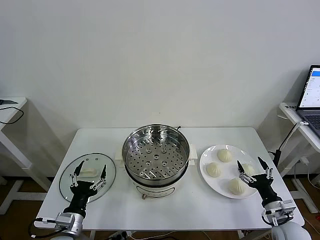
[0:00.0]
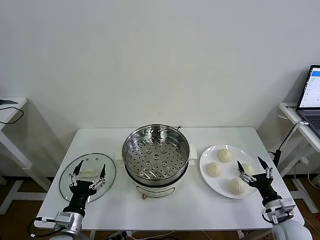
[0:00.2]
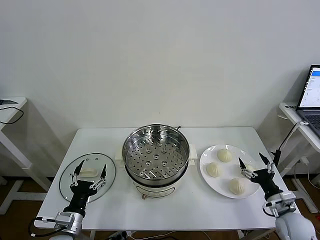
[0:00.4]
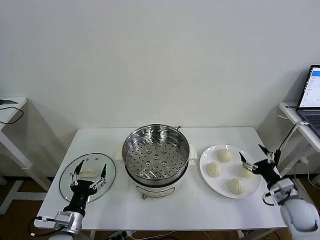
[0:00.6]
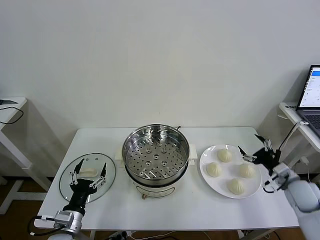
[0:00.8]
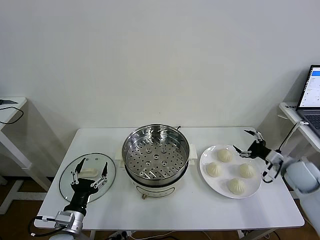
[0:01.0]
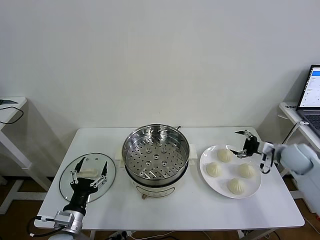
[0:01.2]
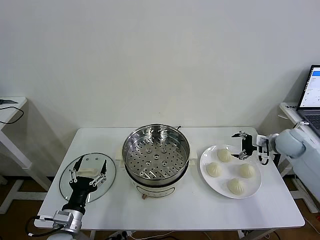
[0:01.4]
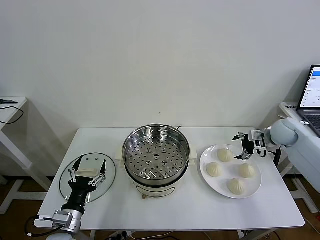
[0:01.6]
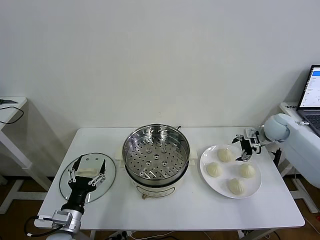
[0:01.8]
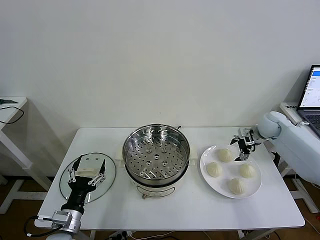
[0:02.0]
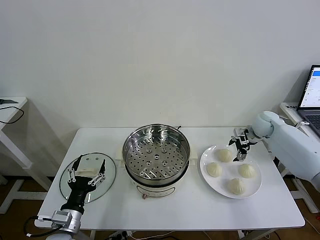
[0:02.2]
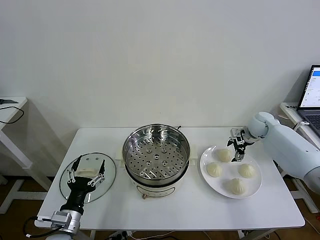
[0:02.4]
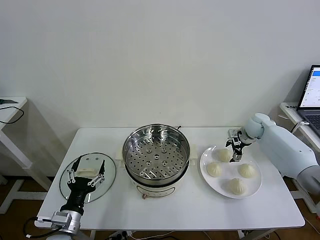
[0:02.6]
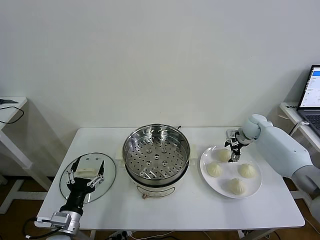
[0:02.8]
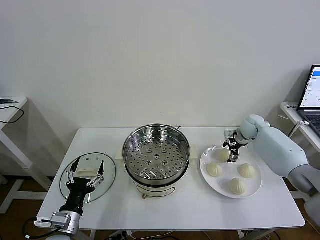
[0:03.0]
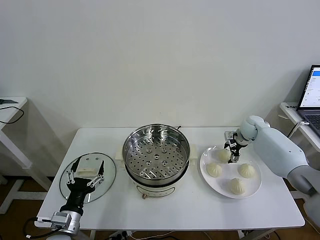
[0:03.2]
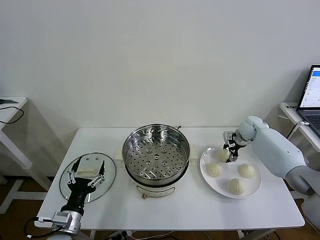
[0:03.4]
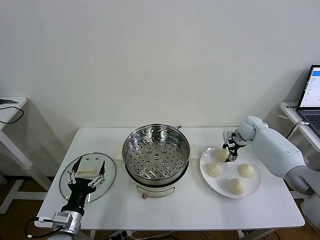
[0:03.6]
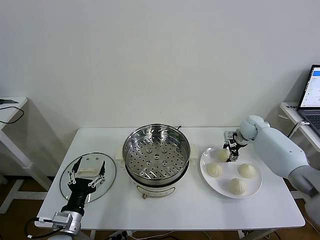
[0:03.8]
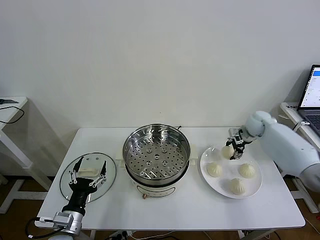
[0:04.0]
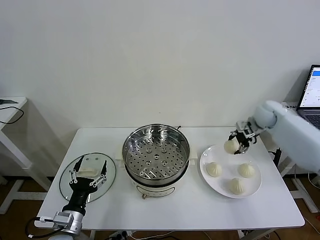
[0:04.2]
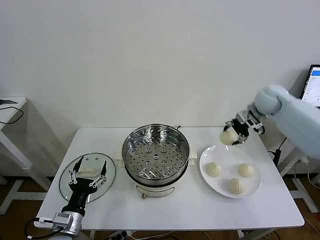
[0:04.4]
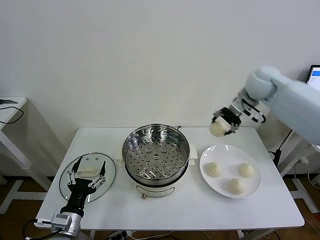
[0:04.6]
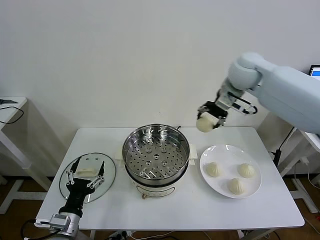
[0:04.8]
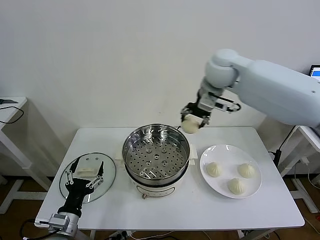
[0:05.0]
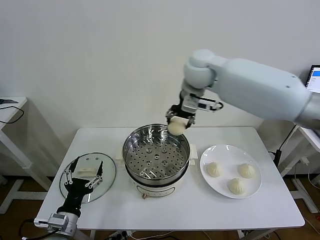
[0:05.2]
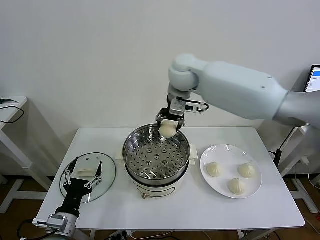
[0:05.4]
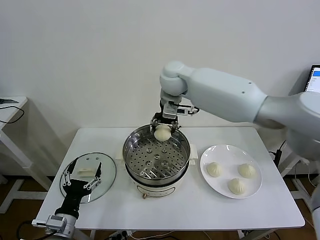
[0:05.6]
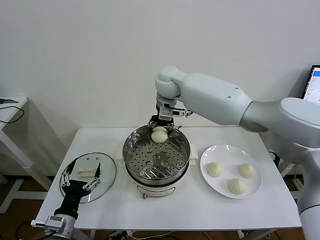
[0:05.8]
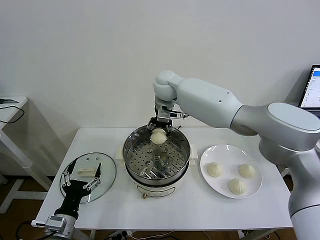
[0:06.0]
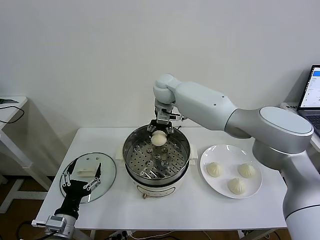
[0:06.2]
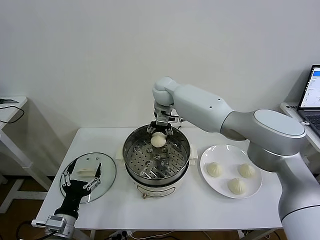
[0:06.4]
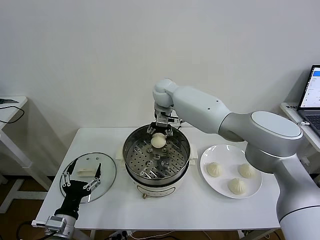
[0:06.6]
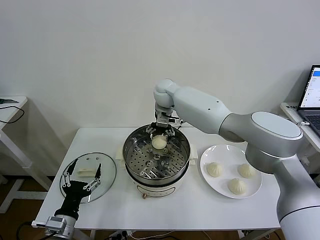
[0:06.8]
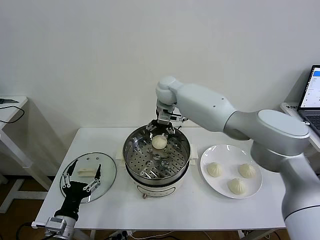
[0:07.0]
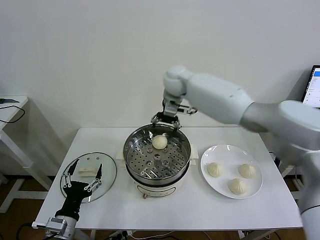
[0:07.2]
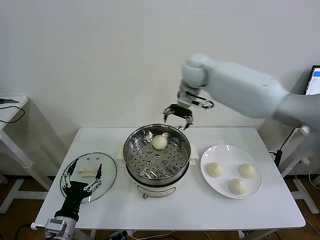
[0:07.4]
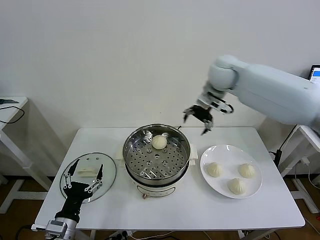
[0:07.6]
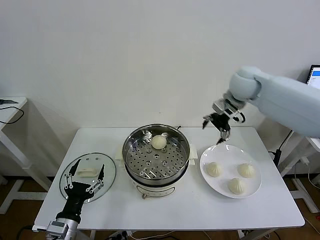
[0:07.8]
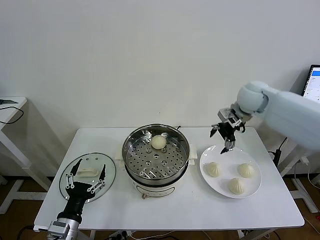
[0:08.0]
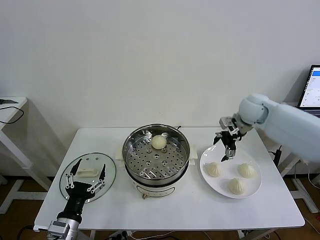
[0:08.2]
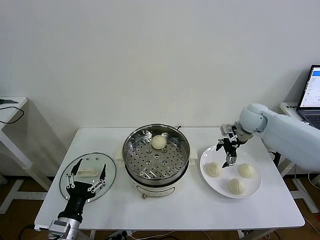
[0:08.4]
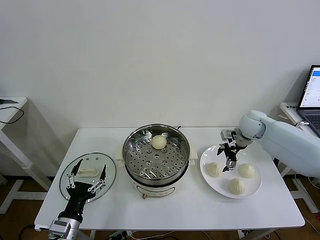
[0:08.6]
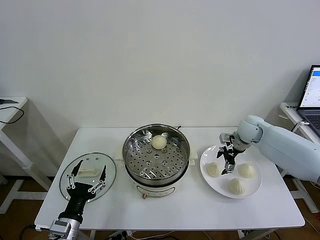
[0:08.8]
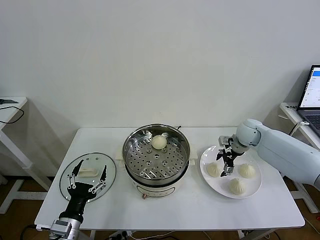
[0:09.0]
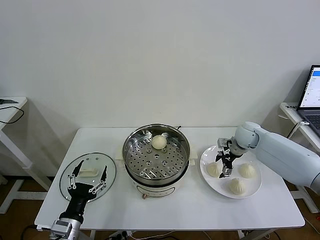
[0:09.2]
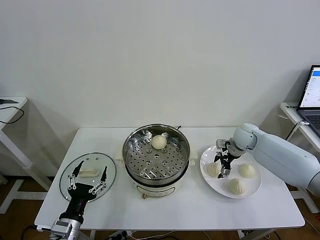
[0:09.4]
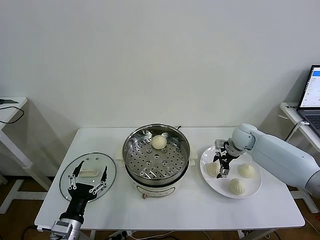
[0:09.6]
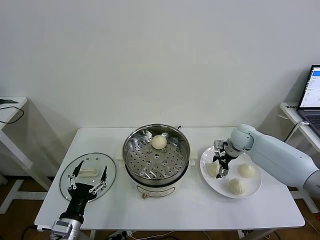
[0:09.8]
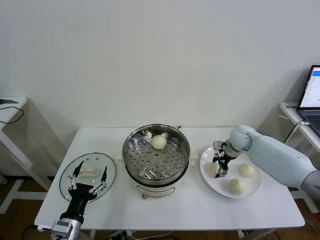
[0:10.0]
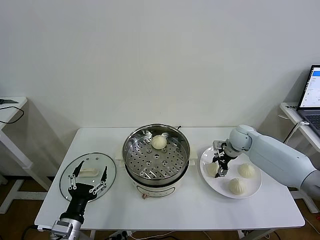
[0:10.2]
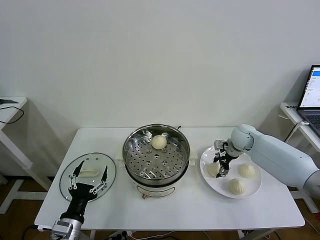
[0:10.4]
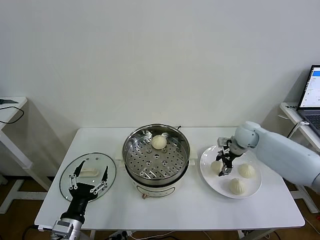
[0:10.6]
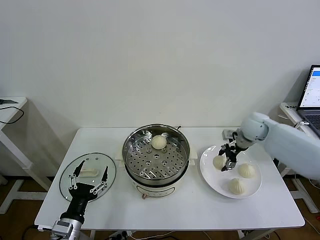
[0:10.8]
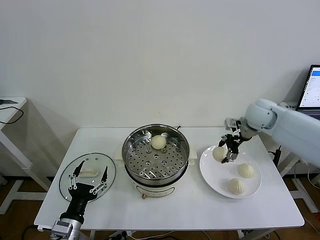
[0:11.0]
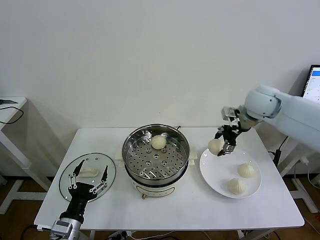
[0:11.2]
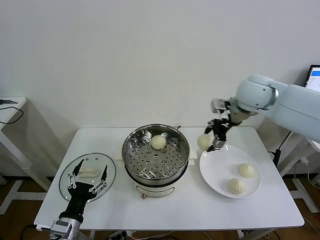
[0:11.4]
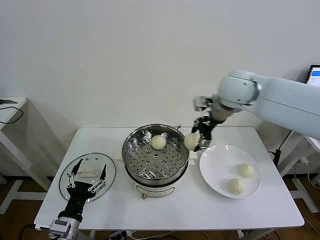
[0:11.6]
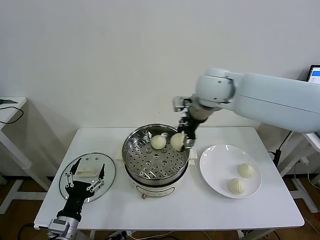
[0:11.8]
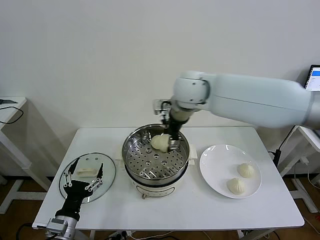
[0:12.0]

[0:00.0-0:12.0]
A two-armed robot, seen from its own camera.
Task of the whole recording: take steamed baozi put them in steamer then cover it.
Step, 0.0 to 3.6 s: Grasp the baozi in the plate with right gripper.
Step, 3.8 to 6.8 s: Place the baozi on the steamer with right gripper.
Step, 7.0 to 10.2 s: Grasp the baozi in the plate with right gripper.
1.6 to 3.0 s: The right gripper moves forward, downward and to the left, approximately 10 cm.
3.0 to 4.4 s: The right gripper shifts roughly 20 cm upward, and closes its fingers.
4.4 to 6.0 s: The right gripper travels to the left by approximately 30 cm.
6.0 to 7.6 s: The right gripper heads to the right, covering approximately 20 cm, and opens up.
7.6 to 9.0 s: The right gripper travels downward and to the right by roughly 25 cm.
9.0 to 10.4 s: The right gripper closes its fingers.
10.4 to 12.0 s: The right gripper travels to the left and upward by roughly 35 cm.

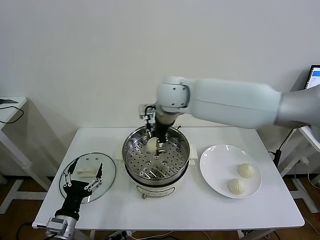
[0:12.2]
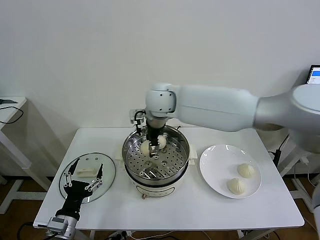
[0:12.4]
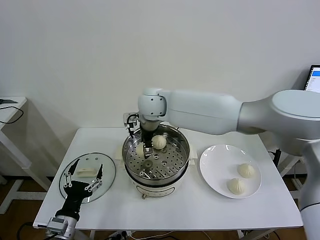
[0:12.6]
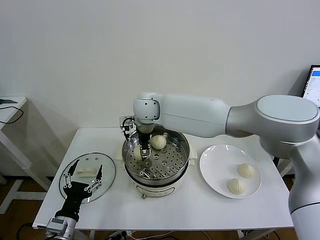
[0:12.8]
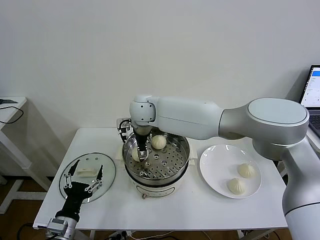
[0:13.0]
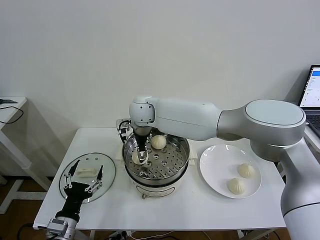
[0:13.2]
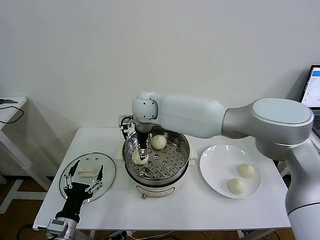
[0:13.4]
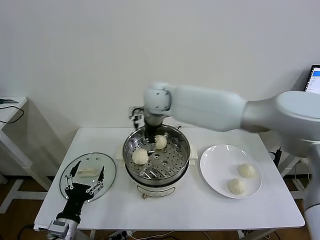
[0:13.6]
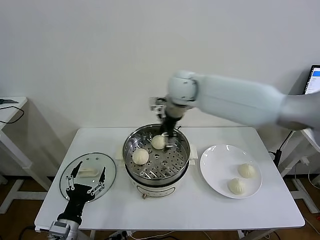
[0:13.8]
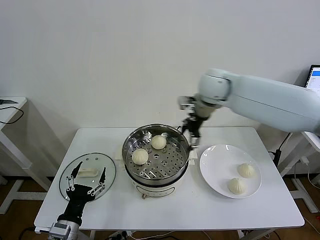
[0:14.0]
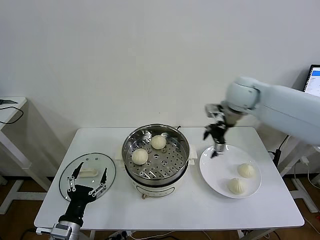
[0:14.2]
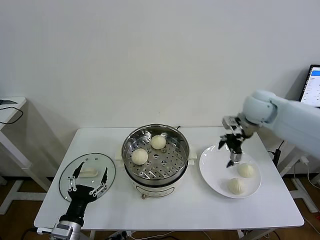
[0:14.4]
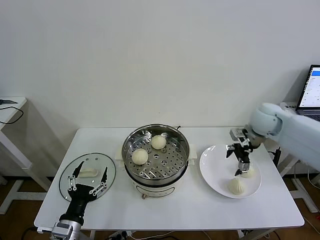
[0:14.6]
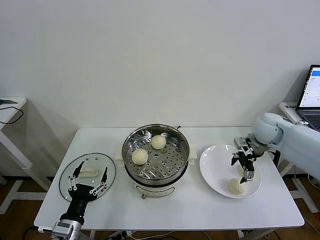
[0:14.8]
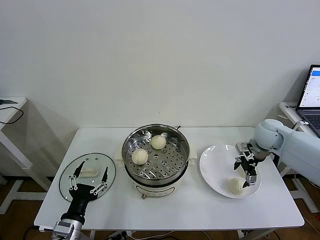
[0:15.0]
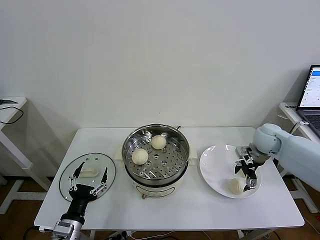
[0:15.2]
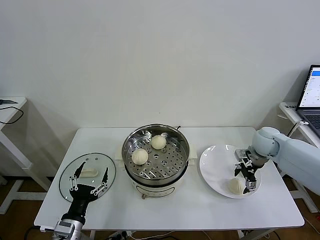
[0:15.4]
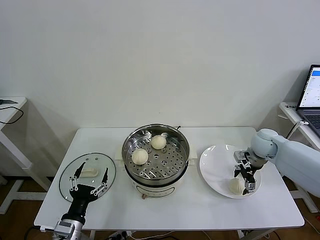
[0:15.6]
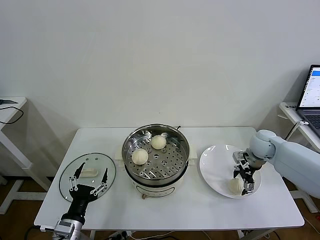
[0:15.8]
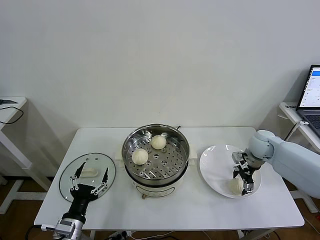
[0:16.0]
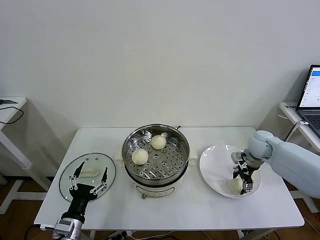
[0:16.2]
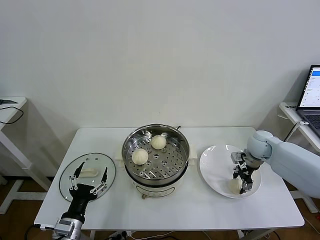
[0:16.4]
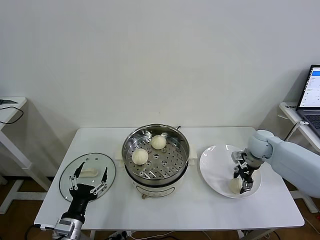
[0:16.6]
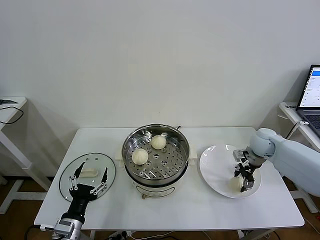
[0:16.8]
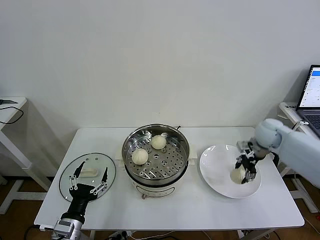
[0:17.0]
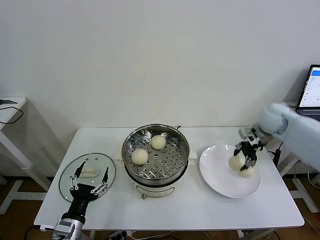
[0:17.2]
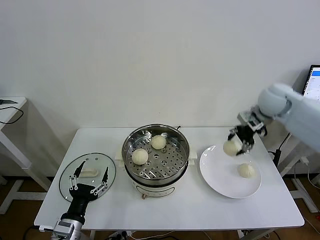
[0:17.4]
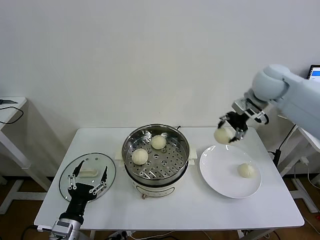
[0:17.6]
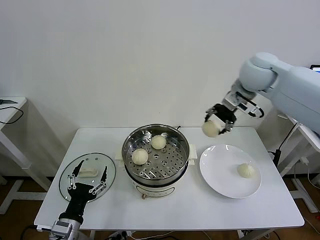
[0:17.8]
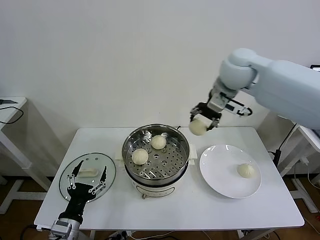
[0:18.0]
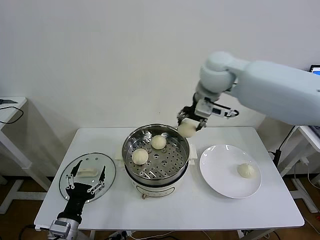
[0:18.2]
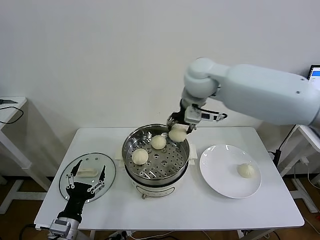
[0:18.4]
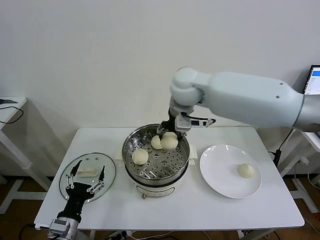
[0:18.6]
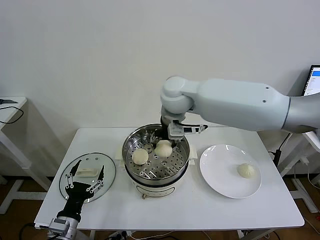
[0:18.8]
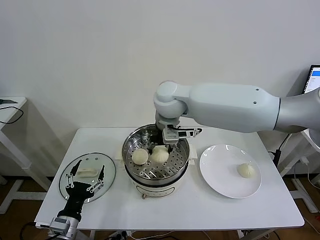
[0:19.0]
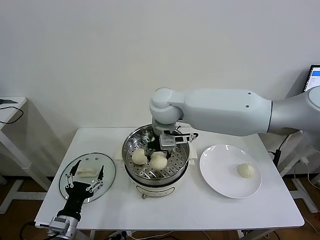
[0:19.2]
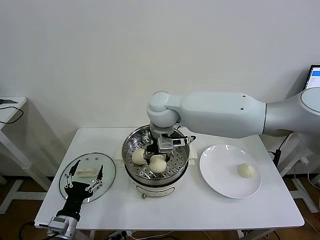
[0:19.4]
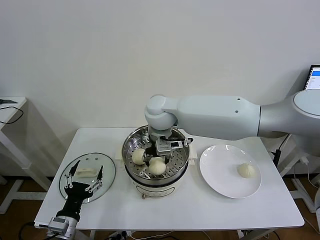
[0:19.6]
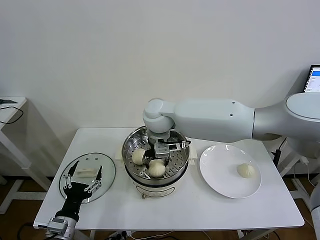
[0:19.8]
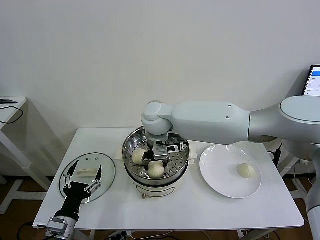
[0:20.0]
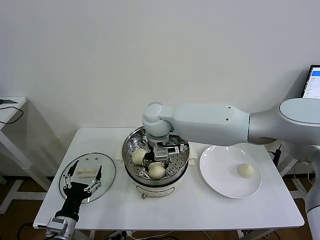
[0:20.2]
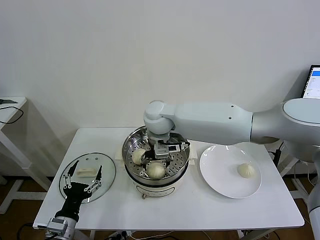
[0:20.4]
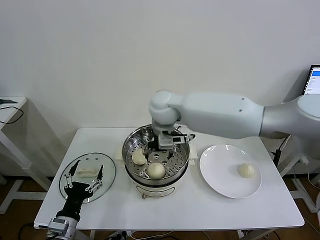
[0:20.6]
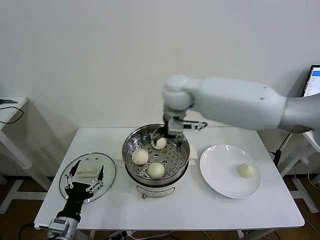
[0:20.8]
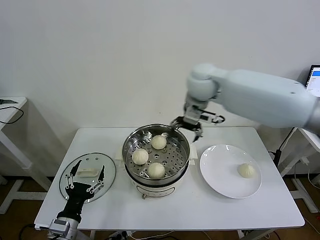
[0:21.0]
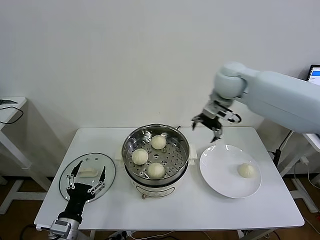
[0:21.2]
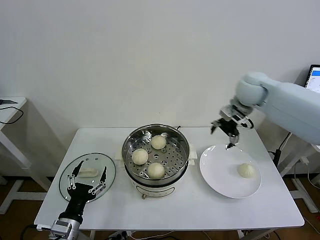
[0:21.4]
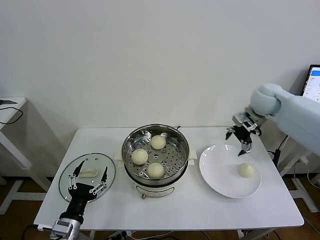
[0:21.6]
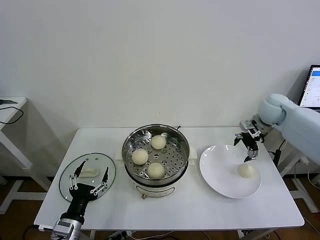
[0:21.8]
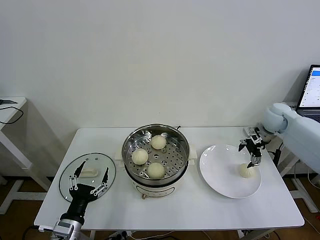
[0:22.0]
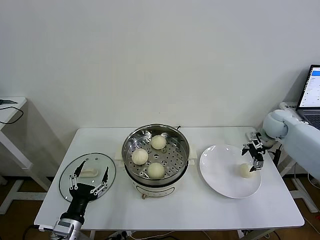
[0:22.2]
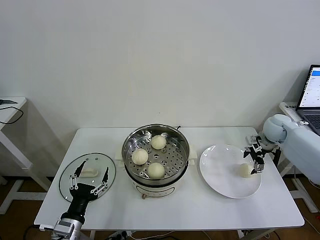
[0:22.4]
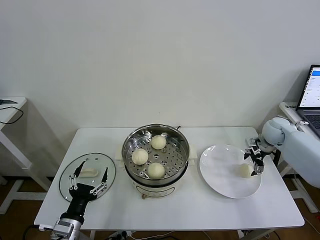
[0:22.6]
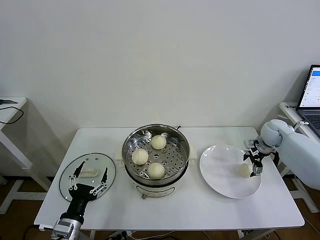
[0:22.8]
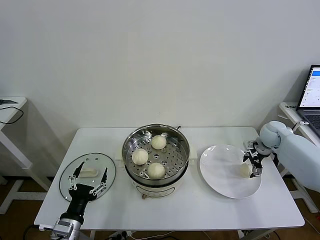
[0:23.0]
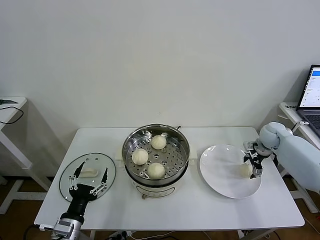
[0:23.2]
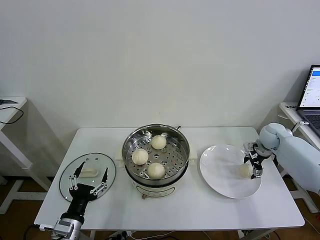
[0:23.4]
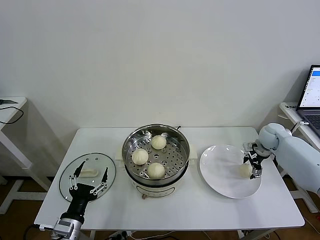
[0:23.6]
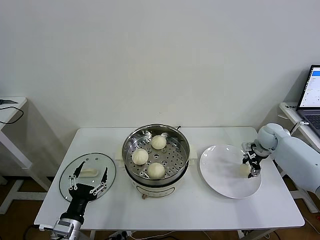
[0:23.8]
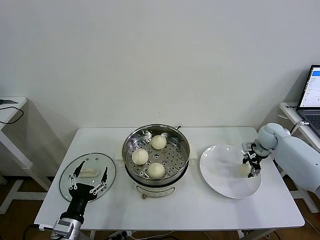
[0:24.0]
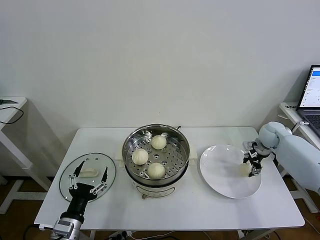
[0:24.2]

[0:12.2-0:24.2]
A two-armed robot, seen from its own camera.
Task of the whole recording: take steamed baozi put them in steamer then cover it.
Step, 13.4 to 16.4 s: Grasp the baozi in the plate with right gripper.
Step, 16.6 to 20.2 s: Place the baozi on the steamer with right gripper.
Step, 20.4 to 24.2 s: Grasp the baozi in the plate with right gripper.
12.2 to 13.8 s: The right gripper moves to the right, some 10 cm, and opens its fingers.
13.8 to 15.2 s: The right gripper moves to the right and downward, approximately 35 cm.
15.2 to 16.6 s: The right gripper closes.
16.6 to 18.2 s: The right gripper moves upward and to the left, approximately 35 cm.
18.2 to 19.8 s: The right gripper moves to the left and downward, roughly 20 cm.
19.8 to 21.2 s: The right gripper moves to the right, some 20 cm, and opens.
21.2 to 22.6 s: The right gripper travels to the right and downward by approximately 30 cm.
22.6 to 24.2 s: The right gripper closes up.
